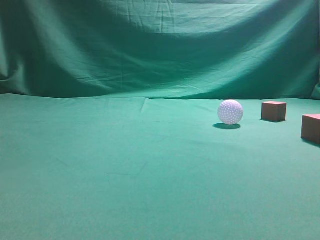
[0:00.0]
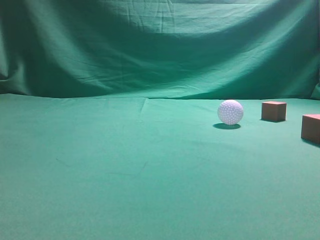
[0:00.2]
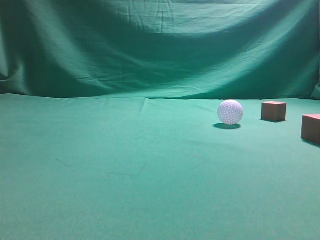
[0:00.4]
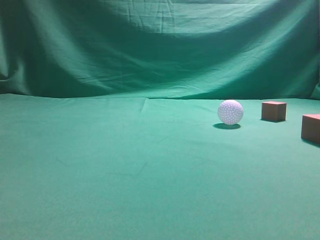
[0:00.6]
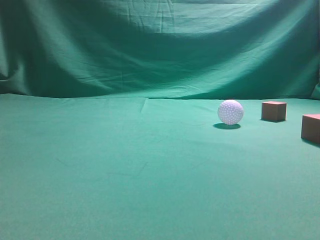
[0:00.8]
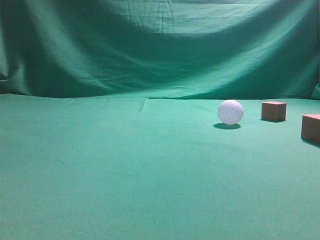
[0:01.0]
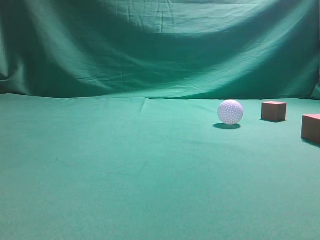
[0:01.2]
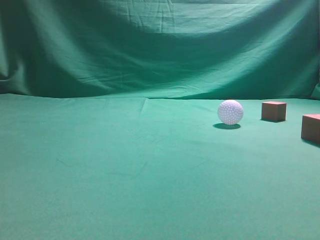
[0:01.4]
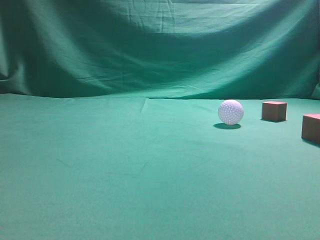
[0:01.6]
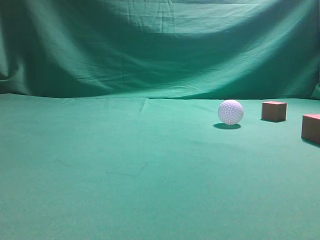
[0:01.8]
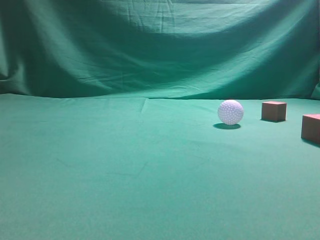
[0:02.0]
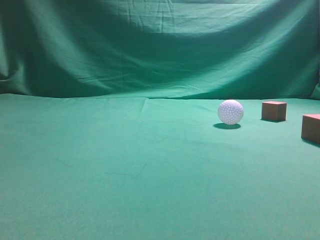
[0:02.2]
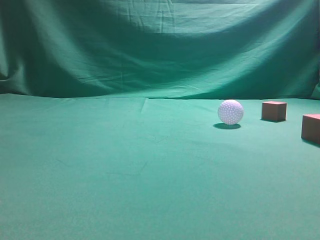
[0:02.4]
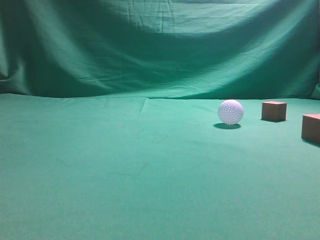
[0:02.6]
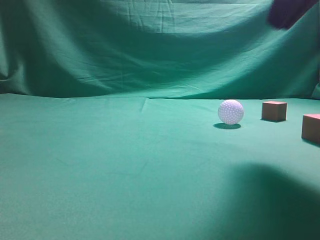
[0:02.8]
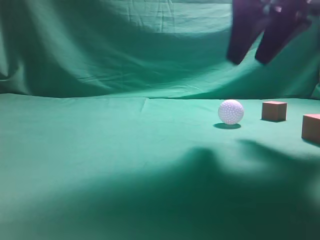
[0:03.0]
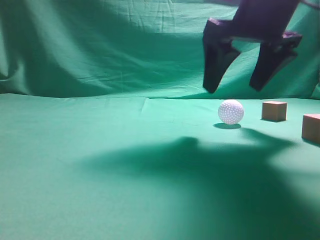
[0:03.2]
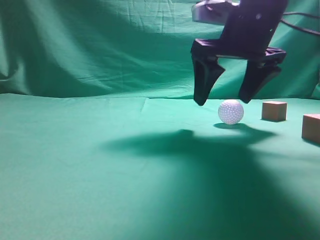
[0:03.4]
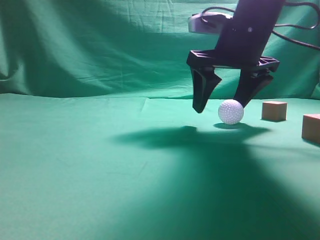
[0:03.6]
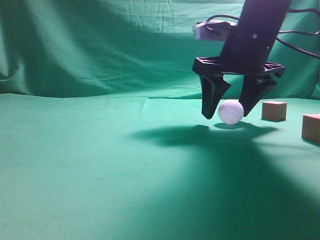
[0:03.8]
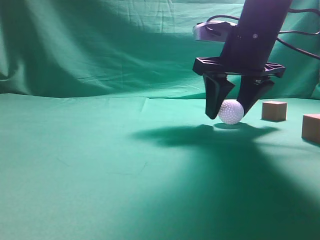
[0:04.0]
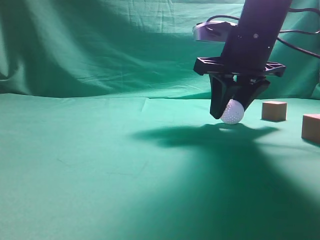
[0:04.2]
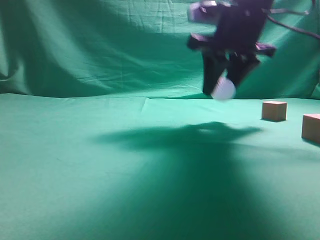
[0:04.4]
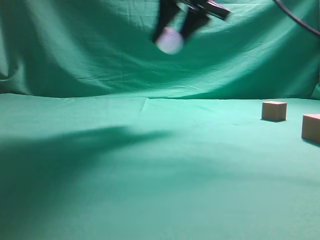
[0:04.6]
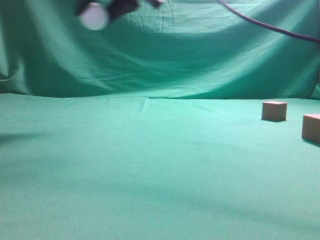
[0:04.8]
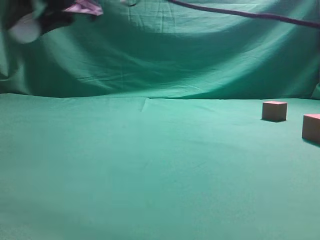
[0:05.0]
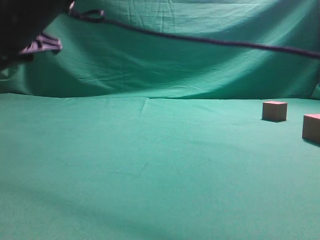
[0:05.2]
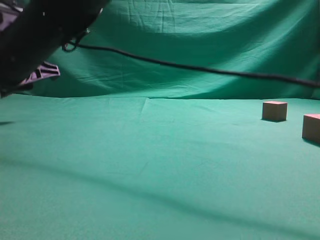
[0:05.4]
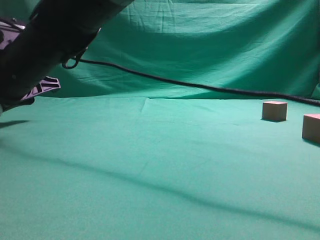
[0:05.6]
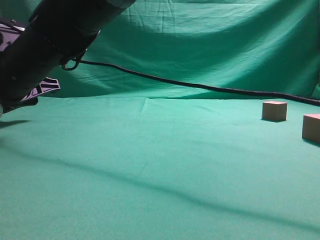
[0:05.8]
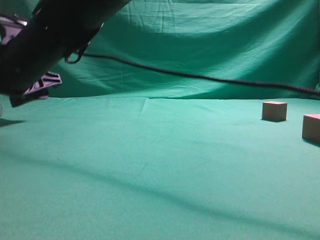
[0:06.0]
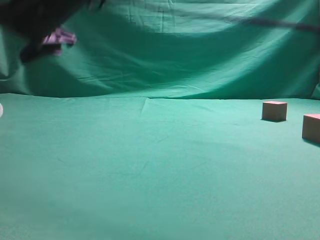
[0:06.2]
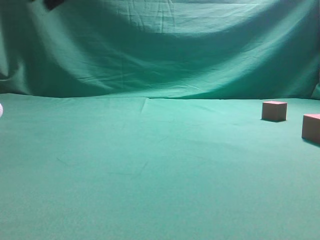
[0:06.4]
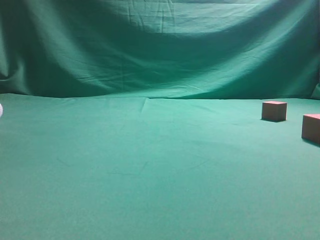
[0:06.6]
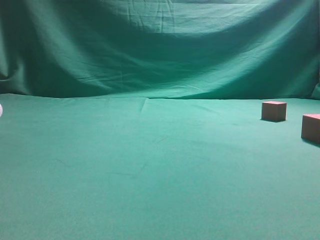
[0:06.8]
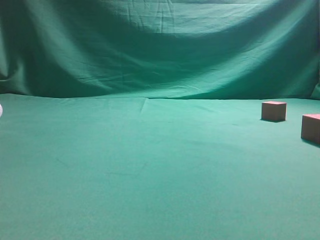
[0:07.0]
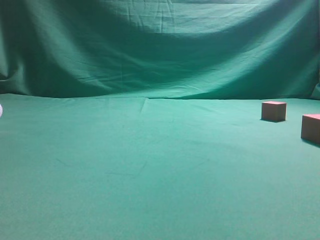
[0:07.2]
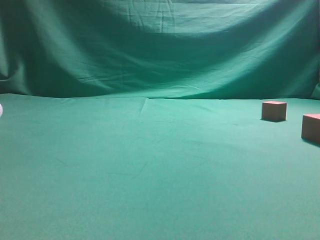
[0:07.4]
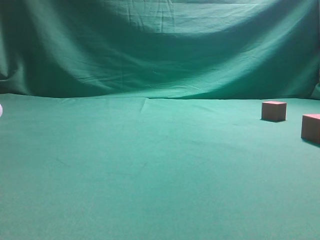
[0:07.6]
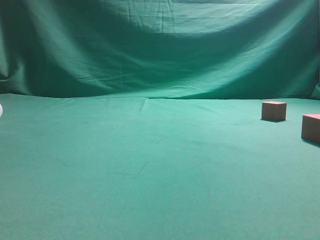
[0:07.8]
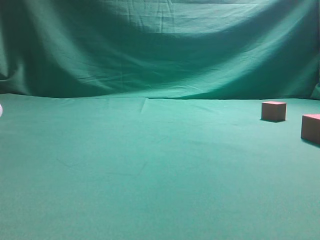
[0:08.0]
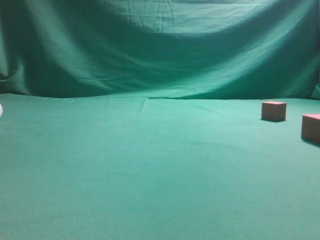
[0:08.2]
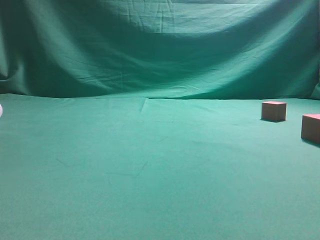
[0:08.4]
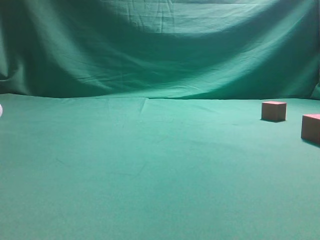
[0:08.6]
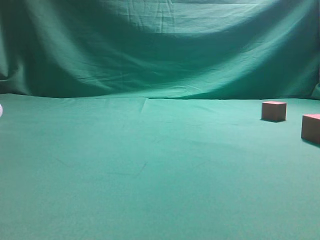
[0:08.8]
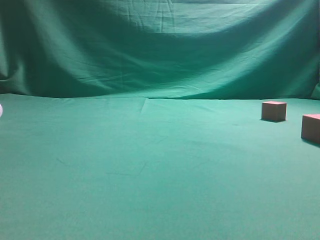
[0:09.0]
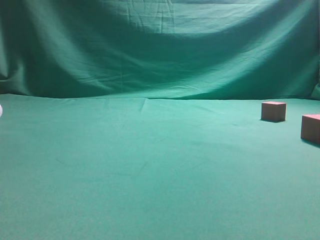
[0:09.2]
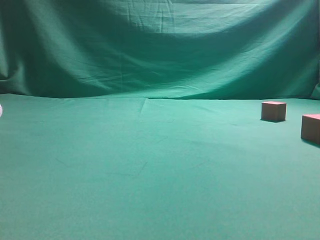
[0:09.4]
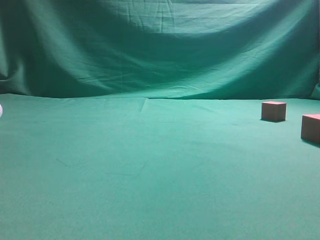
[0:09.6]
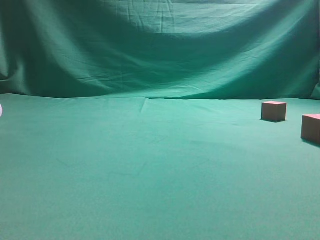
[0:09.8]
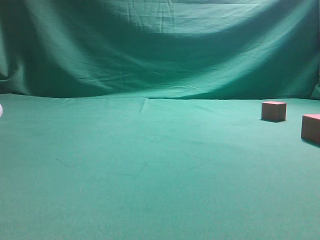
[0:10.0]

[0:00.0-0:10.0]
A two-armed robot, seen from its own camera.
Step, 0:00.0 to 0:04.4: Grasp the spherical object on the right side.
0:01.4 to 0:02.8: The right gripper travels forward, to the left and upward by roughly 25 cm.
0:02.8 to 0:04.2: The right gripper is displaced forward, downward and to the left by some 20 cm, and opens its fingers.
0:04.2 to 0:05.8: The right gripper heads to the left, covering some 30 cm.
0:05.8 to 0:07.2: The right gripper goes some 50 cm upward and to the right, and closes its fingers.
